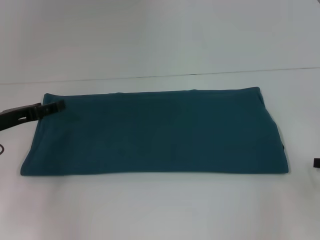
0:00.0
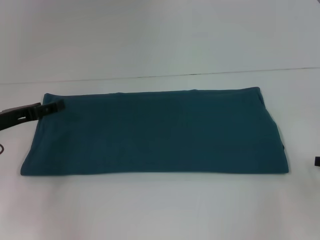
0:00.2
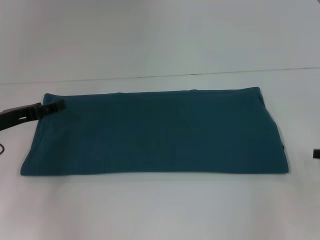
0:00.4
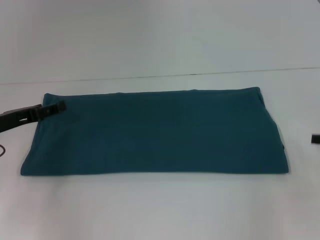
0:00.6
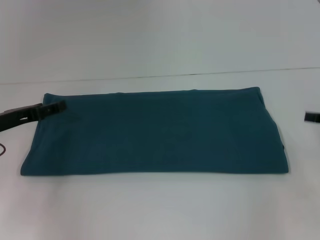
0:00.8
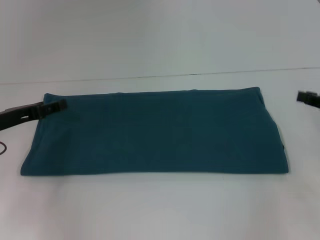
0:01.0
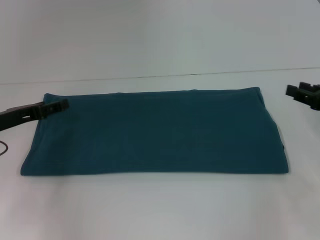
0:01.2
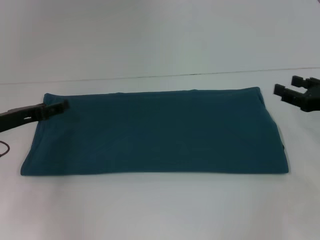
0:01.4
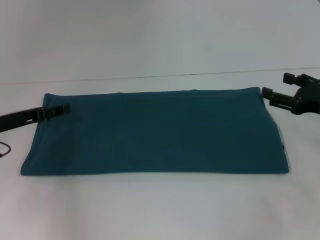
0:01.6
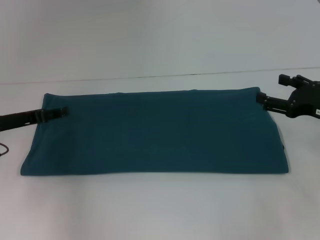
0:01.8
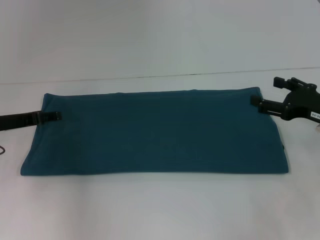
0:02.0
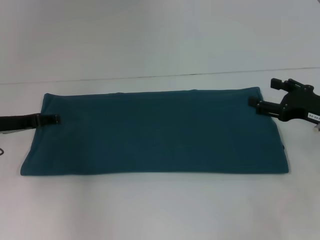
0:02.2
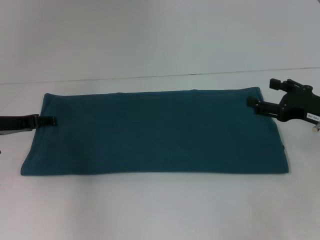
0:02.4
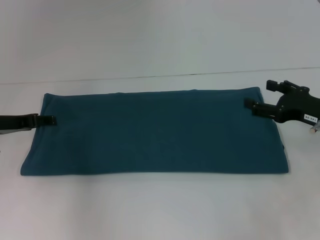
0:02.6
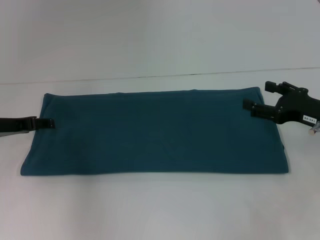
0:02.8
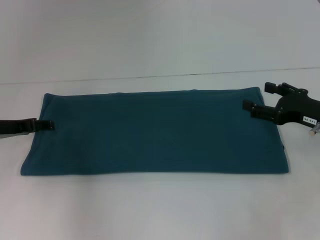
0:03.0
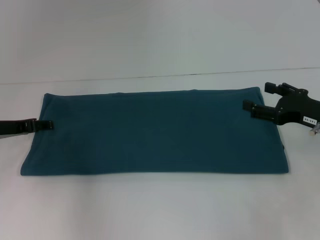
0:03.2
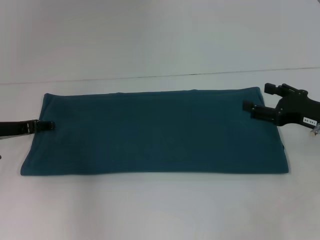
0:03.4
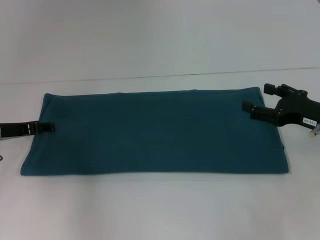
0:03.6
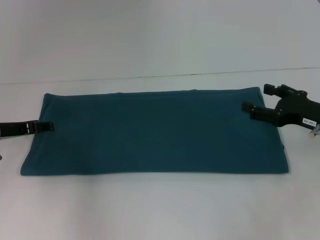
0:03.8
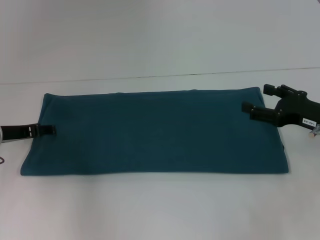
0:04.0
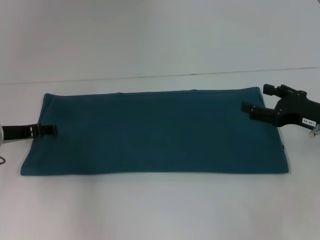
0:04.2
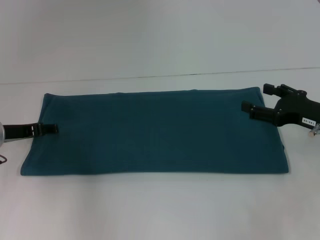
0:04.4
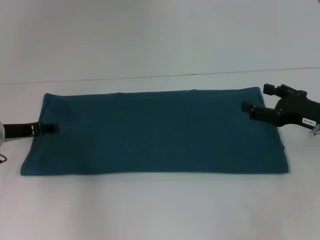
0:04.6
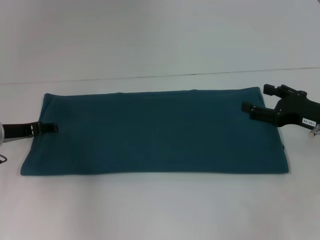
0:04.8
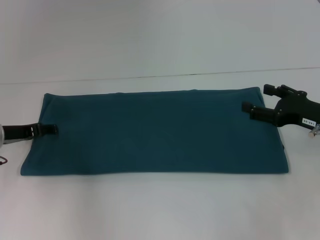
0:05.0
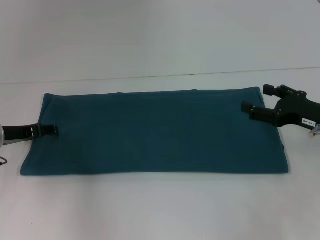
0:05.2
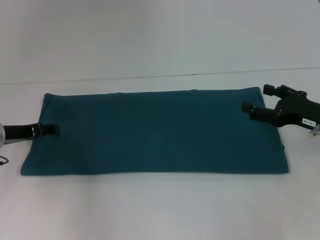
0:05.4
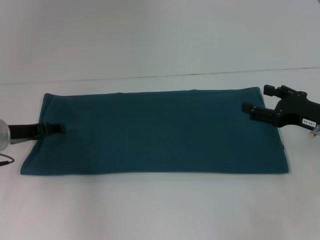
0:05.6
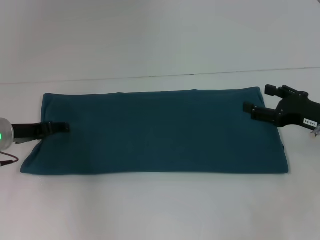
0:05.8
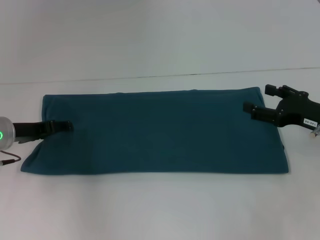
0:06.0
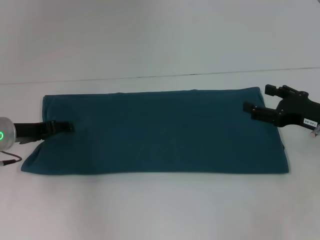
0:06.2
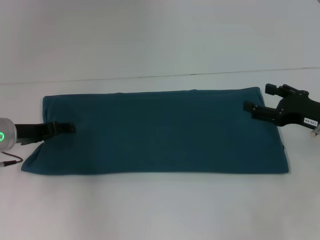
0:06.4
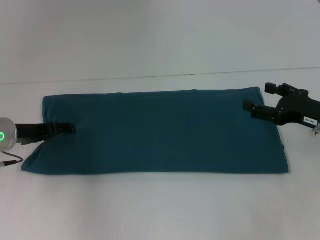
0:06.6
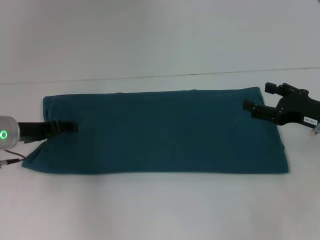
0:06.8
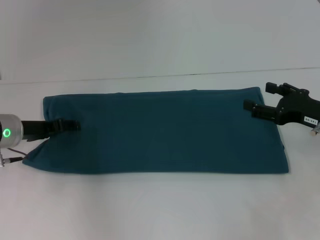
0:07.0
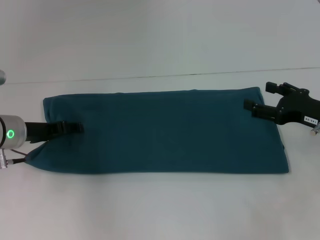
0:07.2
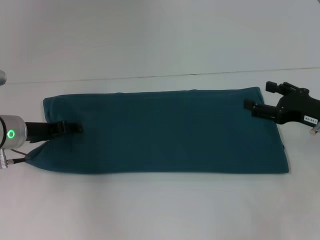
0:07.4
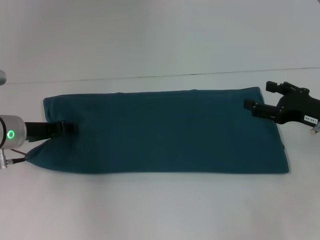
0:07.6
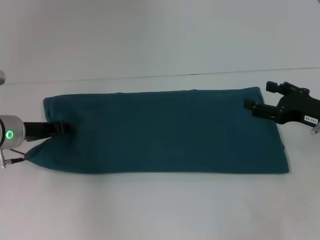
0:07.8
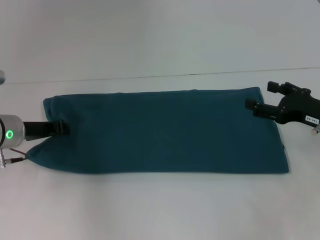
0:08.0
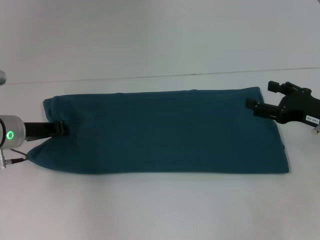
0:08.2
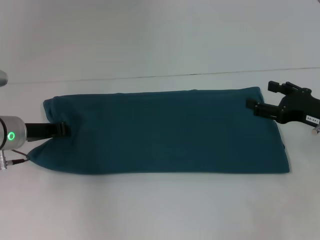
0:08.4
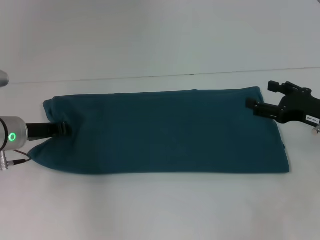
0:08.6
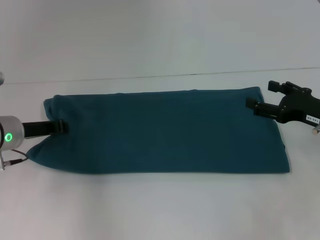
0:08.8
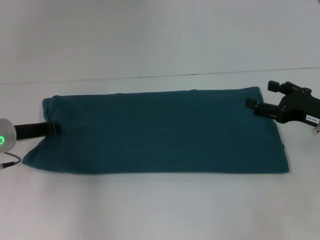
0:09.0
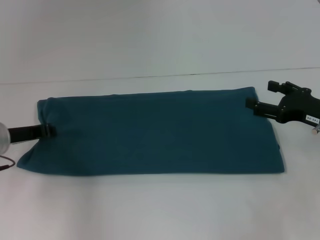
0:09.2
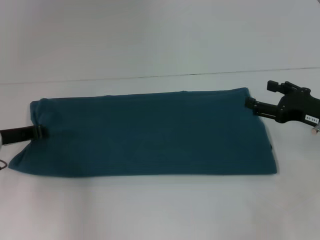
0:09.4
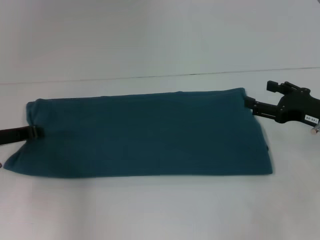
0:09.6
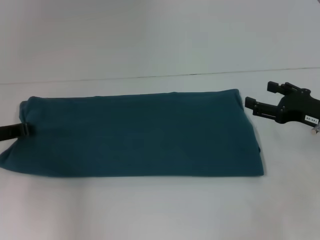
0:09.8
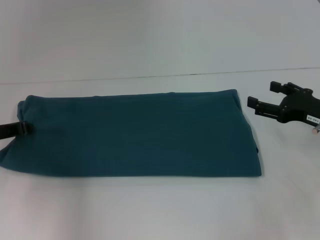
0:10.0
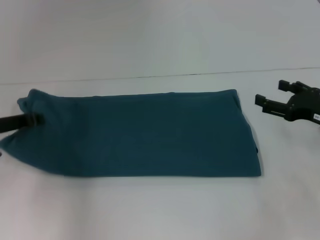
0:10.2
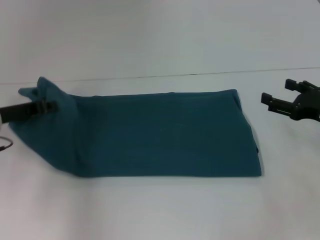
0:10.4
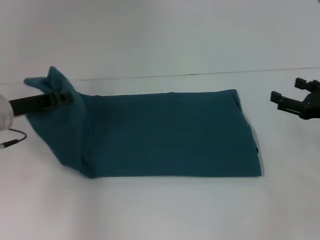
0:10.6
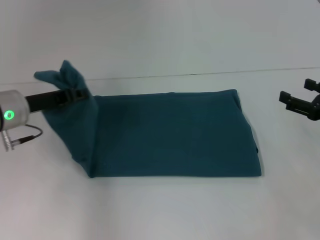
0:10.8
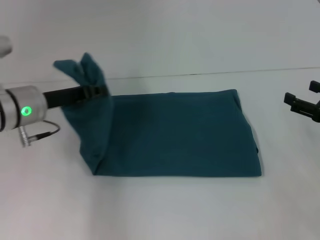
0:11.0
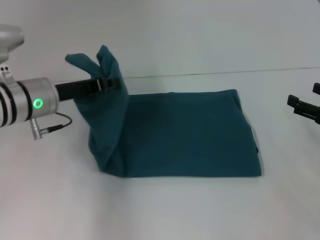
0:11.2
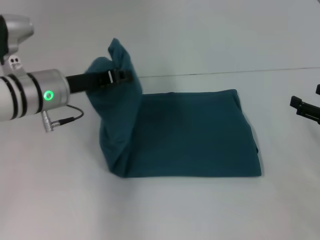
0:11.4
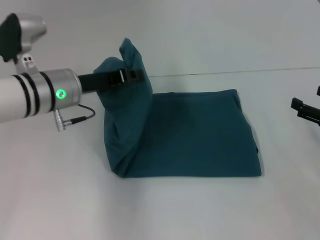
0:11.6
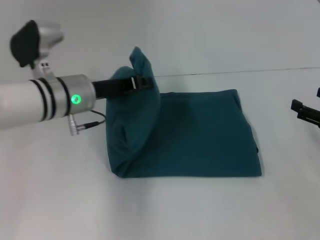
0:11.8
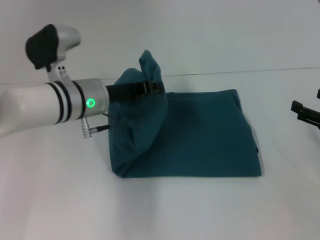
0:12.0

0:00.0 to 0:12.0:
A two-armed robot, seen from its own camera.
0:00.0 to 0:01.6: The right gripper changes place by roughly 5 cm, and opens up.
0:01.6 to 0:03.0: The grippers move only a little.
0:03.0 to 0:07.6: The grippers make only small movements.
0:07.6 to 0:09.0: The left gripper closes.
0:09.0 to 0:10.4: The grippers move only a little.
0:10.4 to 0:12.0: The left gripper heads to the right, covering some 15 cm.

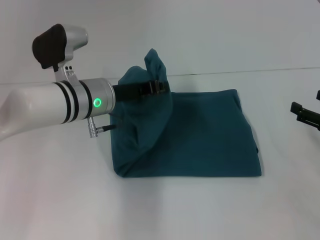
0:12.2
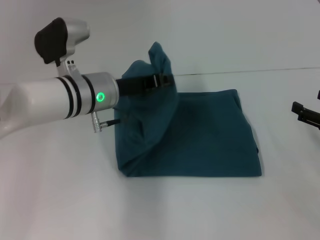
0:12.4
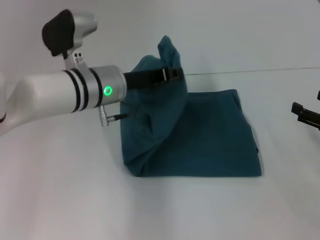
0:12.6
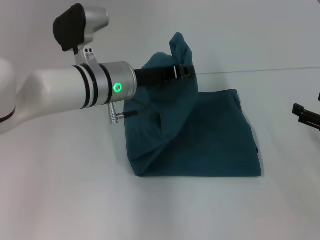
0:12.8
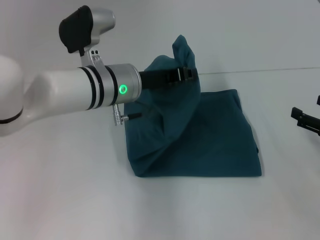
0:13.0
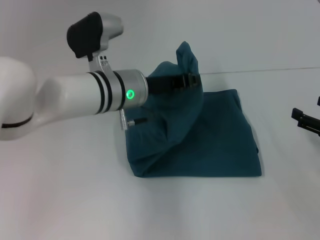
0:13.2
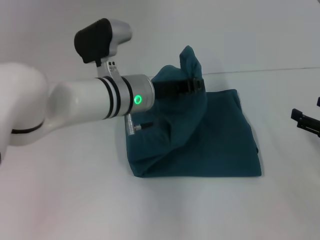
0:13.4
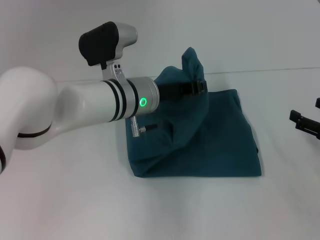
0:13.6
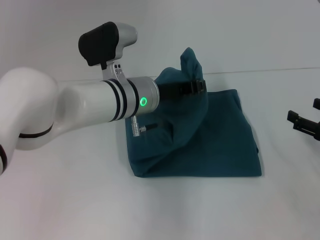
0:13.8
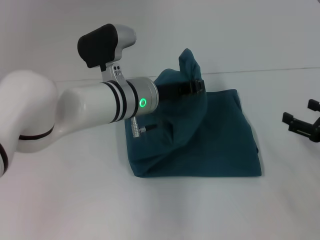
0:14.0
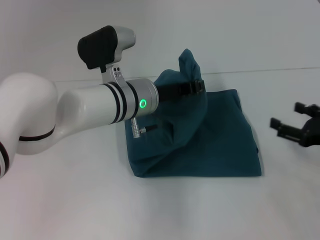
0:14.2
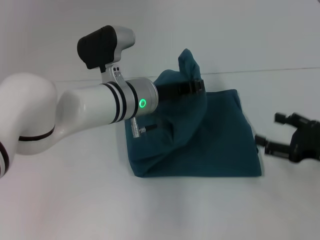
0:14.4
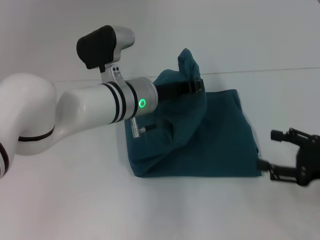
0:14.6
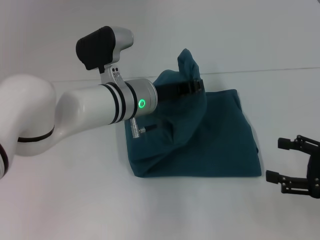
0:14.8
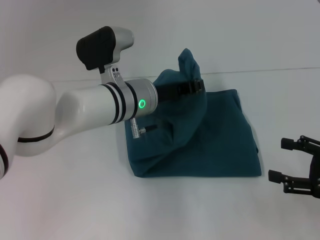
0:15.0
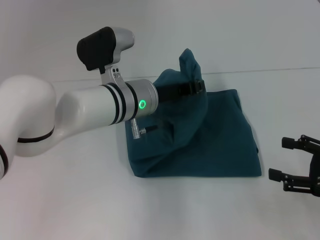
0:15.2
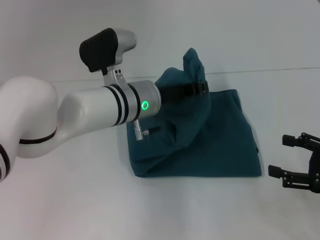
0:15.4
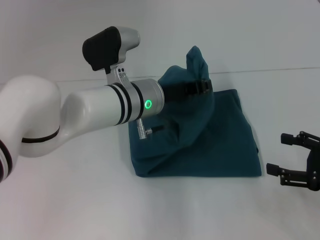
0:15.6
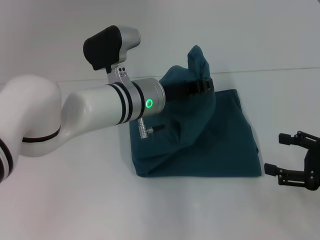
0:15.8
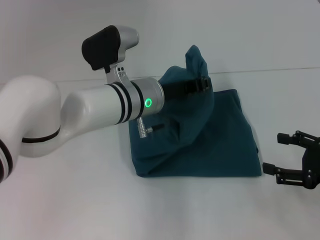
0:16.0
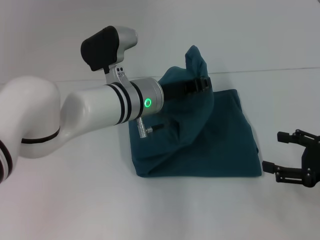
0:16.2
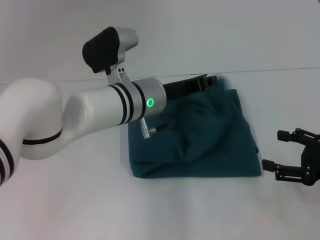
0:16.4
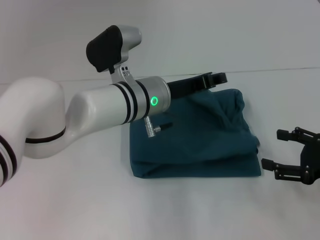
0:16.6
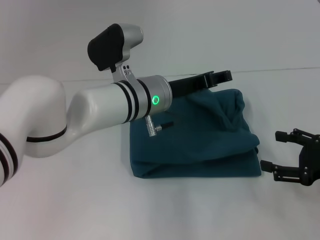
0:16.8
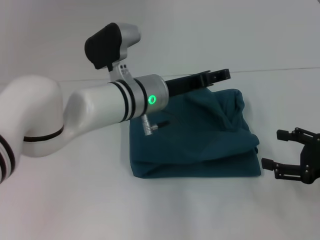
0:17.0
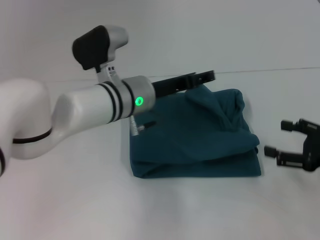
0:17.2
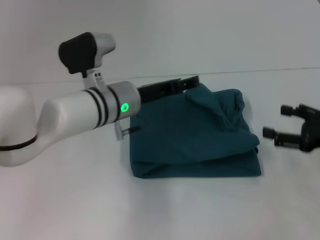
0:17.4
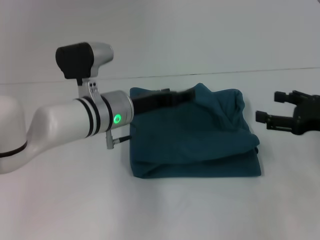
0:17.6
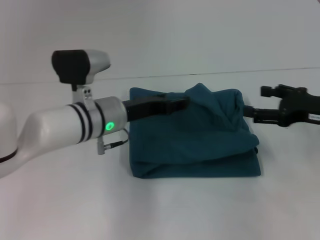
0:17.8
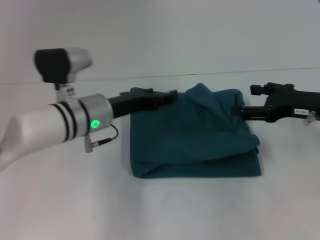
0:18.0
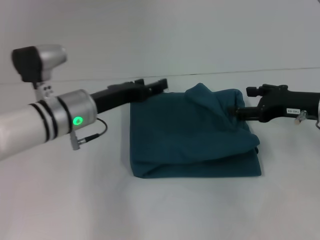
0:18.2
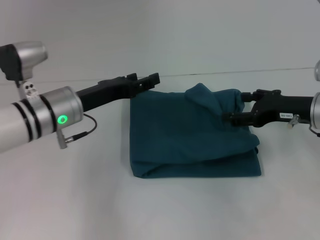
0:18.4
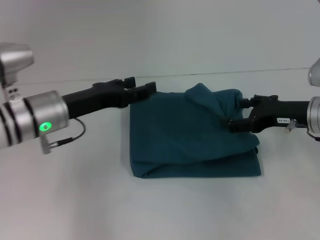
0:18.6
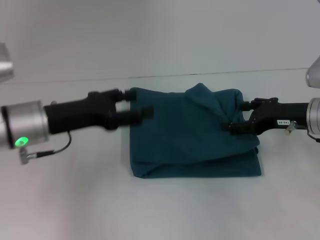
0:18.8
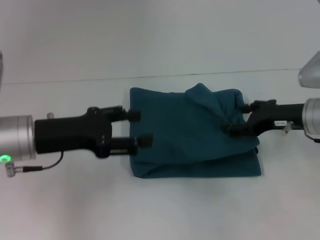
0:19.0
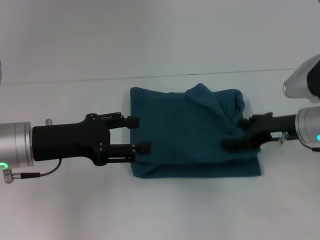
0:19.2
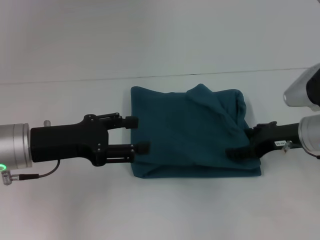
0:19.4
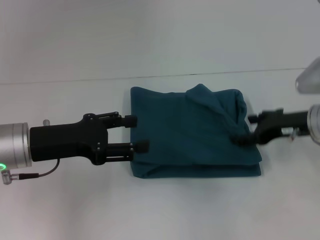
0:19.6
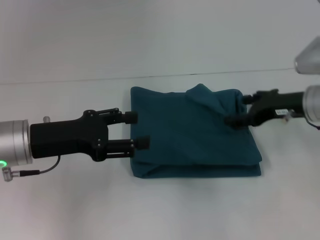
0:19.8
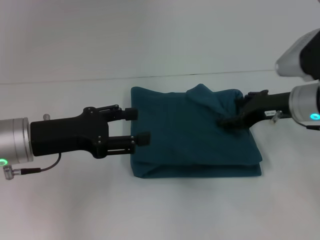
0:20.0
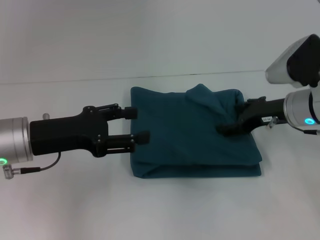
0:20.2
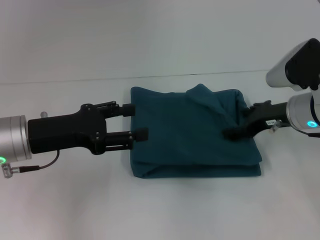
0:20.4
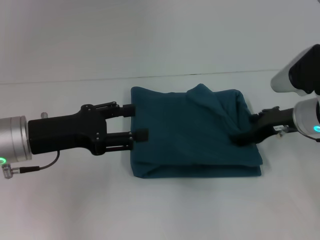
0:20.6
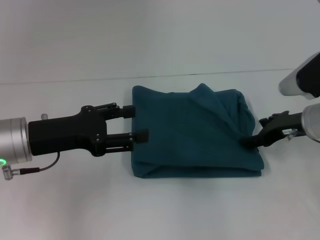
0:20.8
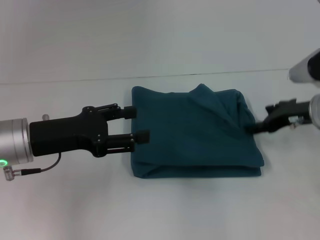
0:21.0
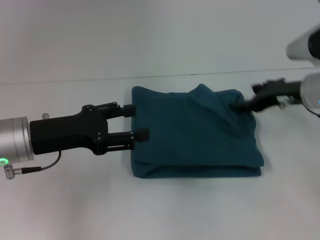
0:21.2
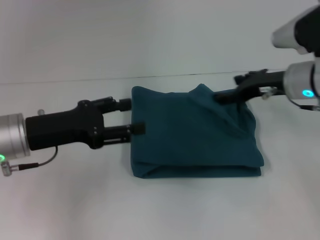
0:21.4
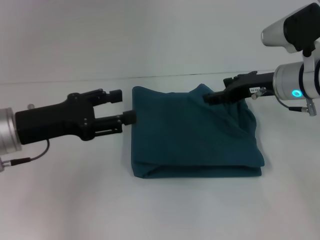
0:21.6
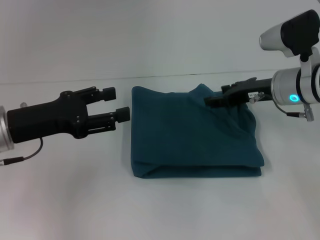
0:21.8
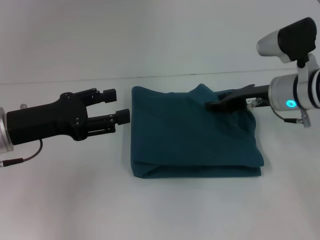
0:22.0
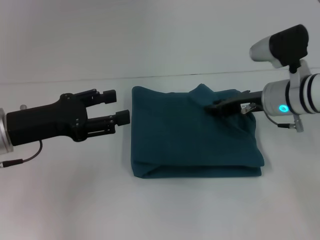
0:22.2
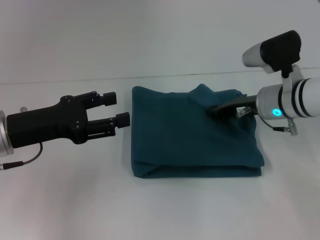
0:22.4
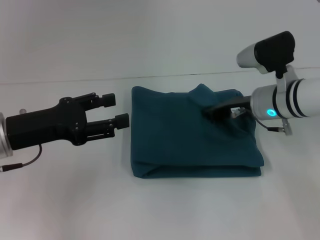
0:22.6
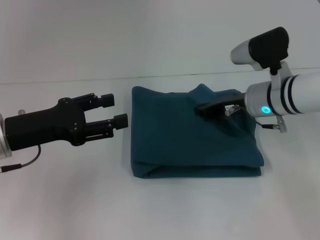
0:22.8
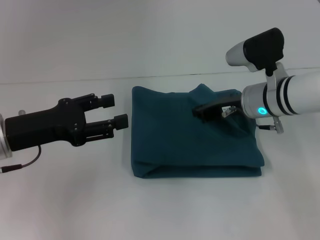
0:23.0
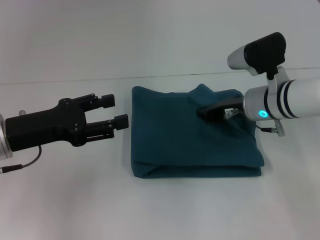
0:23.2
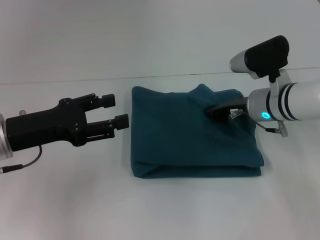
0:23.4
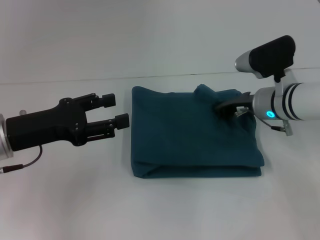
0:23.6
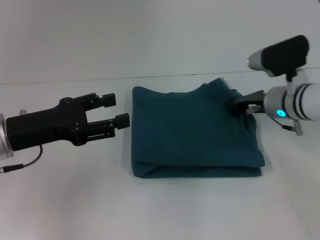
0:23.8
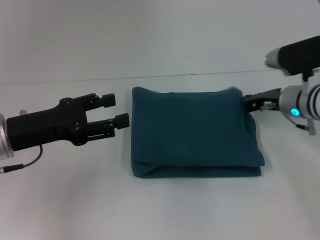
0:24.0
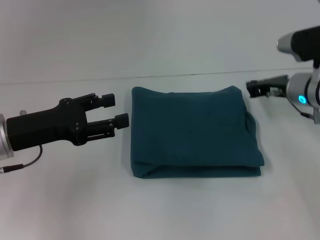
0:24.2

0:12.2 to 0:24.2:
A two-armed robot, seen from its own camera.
Step, 0:12.2 to 0:17.2: Fold the clothes to the left.
0:12.2 to 0:13.8: The left gripper travels to the right by some 5 cm.
0:13.8 to 0:15.2: The right gripper ends up about 5 cm from where it was.
0:15.2 to 0:16.6: There are only small adjustments of the grippers.
0:16.6 to 0:18.2: The right gripper goes about 10 cm forward and to the left. The left gripper travels to the left by some 10 cm, and opens its fingers.
0:18.2 to 0:19.8: The left gripper travels to the left and backward by about 10 cm.
0:19.8 to 0:21.2: The grippers make only small movements.
0:21.2 to 0:22.6: The right gripper heads to the left, covering approximately 5 cm, and closes up.
0:22.6 to 0:24.2: The right gripper is displaced to the right by some 5 cm.
